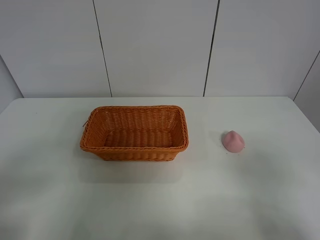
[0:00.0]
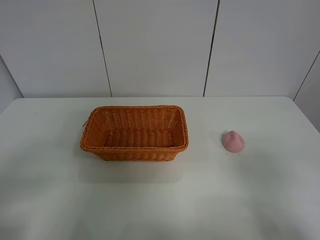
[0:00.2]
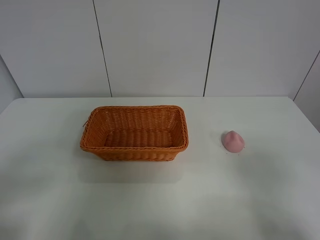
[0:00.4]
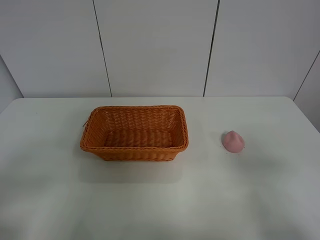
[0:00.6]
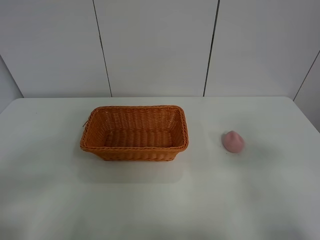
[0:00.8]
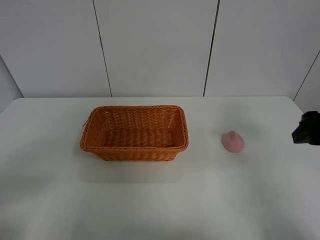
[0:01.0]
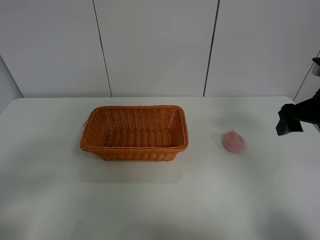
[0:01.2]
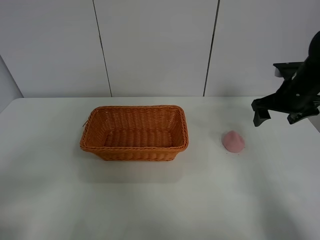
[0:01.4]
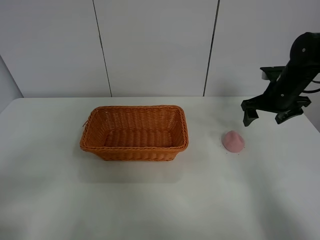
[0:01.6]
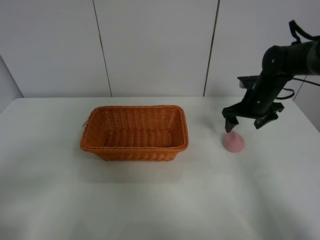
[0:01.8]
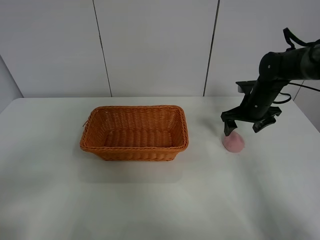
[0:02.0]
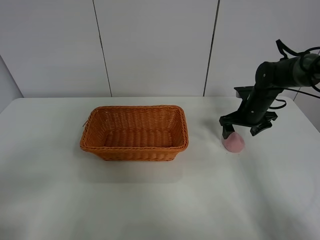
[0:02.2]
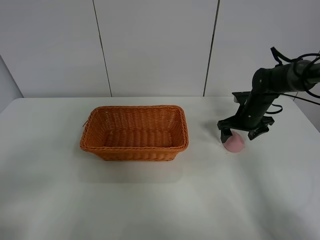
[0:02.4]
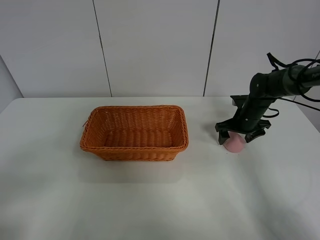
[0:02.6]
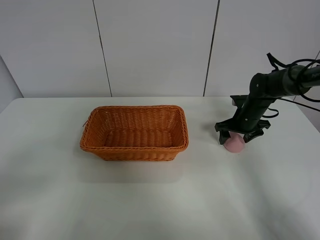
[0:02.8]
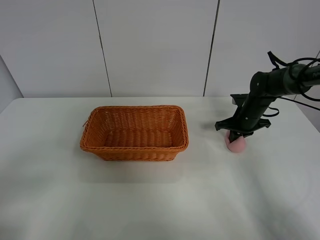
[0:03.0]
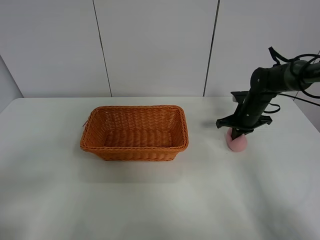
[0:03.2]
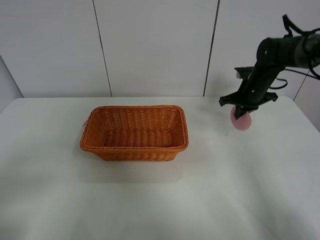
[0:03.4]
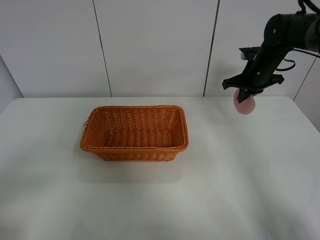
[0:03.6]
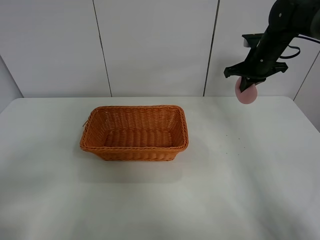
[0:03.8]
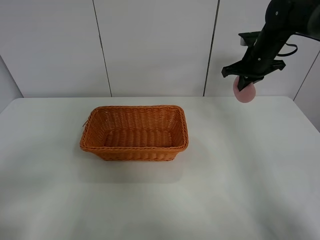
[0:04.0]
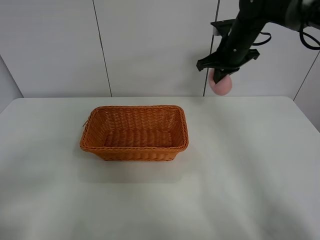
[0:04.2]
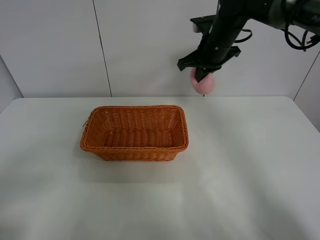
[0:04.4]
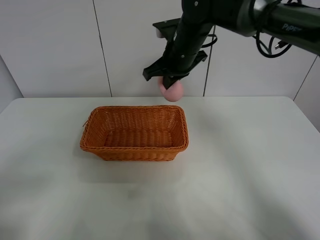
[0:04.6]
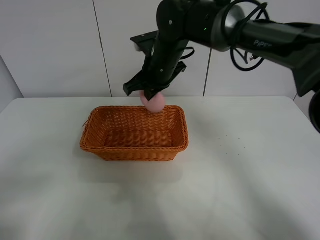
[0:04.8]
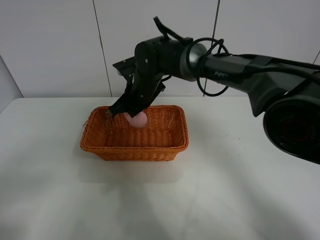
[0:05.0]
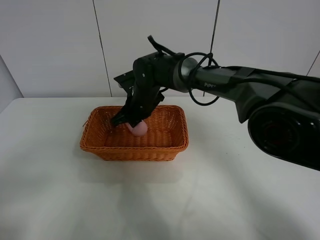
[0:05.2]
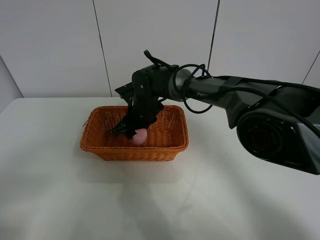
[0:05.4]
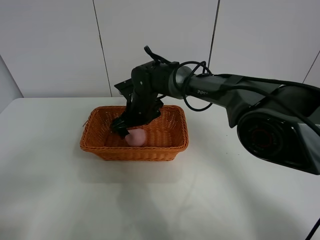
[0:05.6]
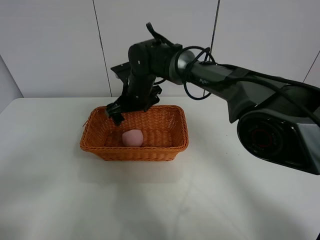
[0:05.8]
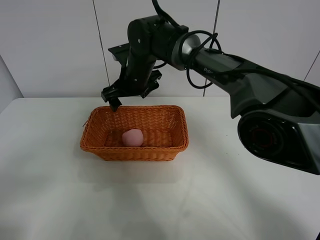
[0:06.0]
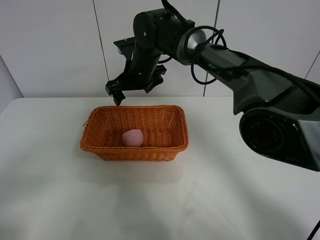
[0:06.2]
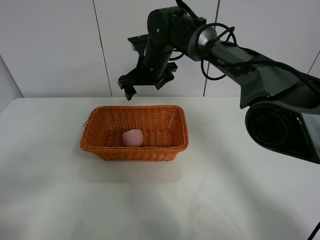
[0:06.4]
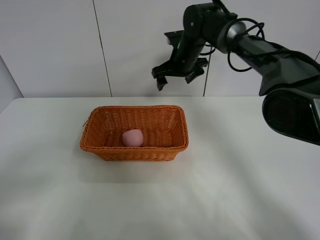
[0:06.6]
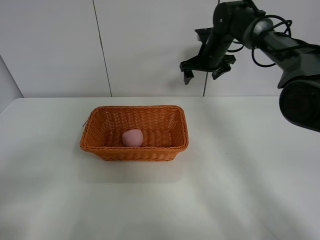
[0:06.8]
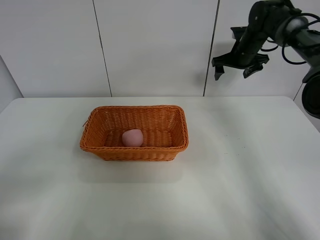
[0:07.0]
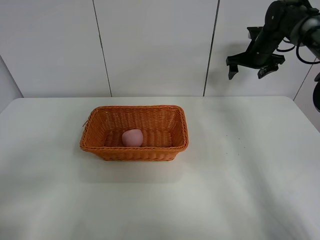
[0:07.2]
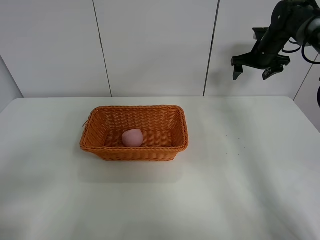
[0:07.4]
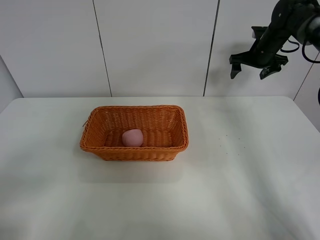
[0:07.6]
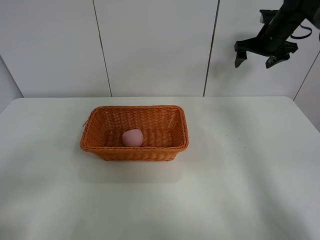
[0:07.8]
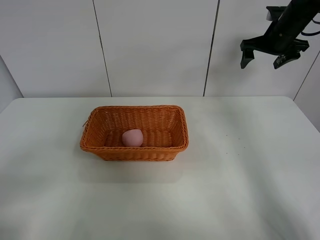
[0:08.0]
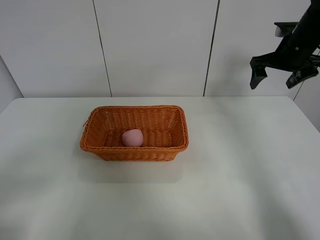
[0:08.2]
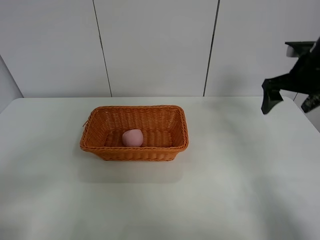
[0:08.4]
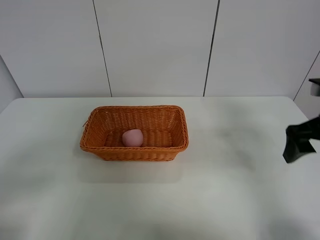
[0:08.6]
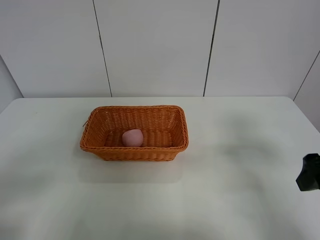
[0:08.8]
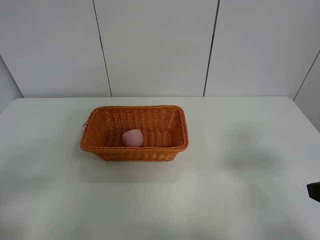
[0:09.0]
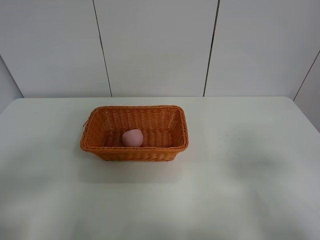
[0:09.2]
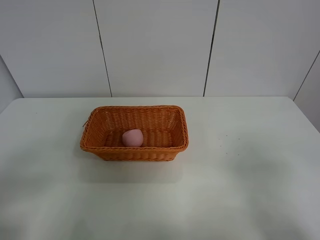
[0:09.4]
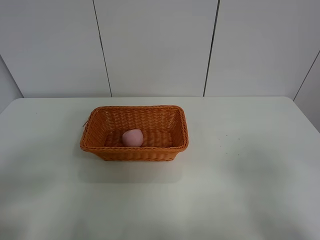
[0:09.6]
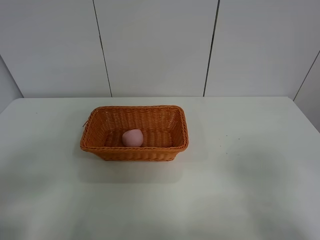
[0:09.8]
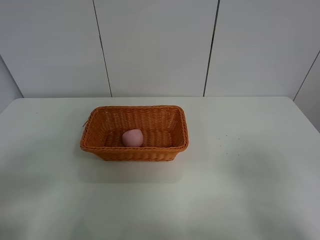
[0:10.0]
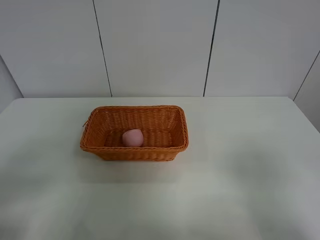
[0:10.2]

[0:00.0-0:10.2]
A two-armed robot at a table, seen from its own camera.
Step, 0:00.0 to 0:03.2: Grasp the peach with right gripper.
Step, 0:03.4 to 0:06.4: Place the peach in the basket with right gripper.
0:00.0 to 0:01.4: The right gripper shifts some 35 cm forward.
0:01.4 to 0:03.0: The right gripper moves downward and forward, roughly 15 cm, and closes up.
0:03.0 to 0:04.4: The right gripper travels upward and to the left by approximately 25 cm.
0:04.4 to 0:05.8: The right gripper travels to the left and downward by some 20 cm, and opens its fingers.
0:05.8 to 0:07.2: The right gripper goes roughly 35 cm to the right.
0:07.2 to 0:08.8: The right gripper travels backward by about 40 cm.
0:08.8 to 0:10.2: The right gripper moves backward, roughly 15 cm.

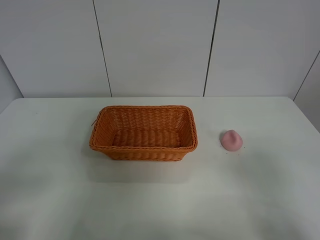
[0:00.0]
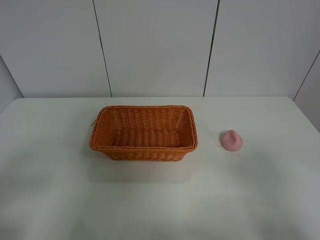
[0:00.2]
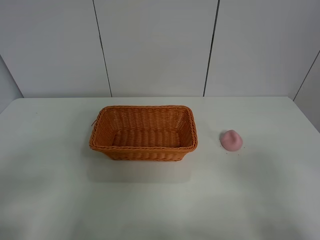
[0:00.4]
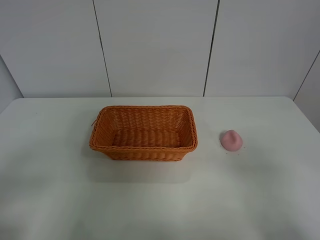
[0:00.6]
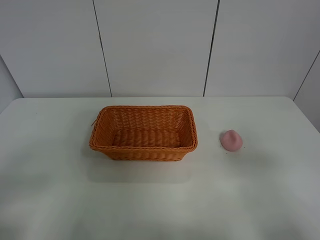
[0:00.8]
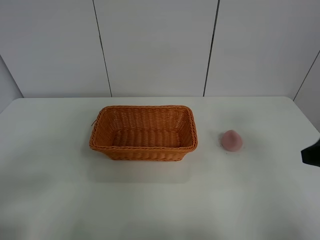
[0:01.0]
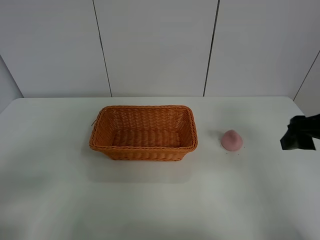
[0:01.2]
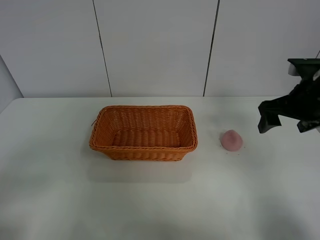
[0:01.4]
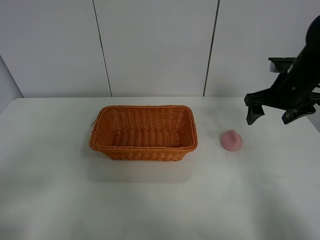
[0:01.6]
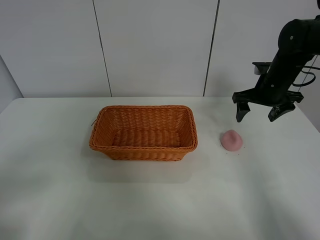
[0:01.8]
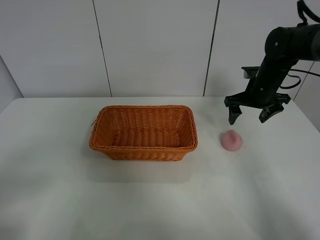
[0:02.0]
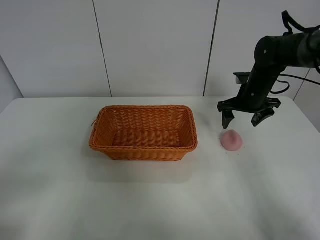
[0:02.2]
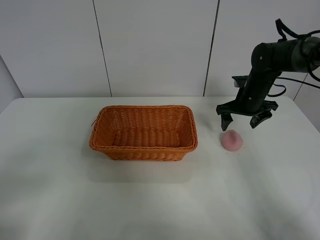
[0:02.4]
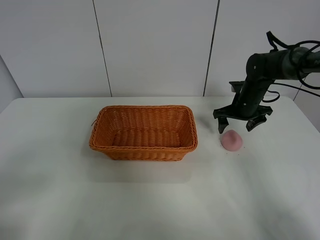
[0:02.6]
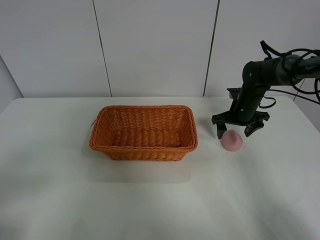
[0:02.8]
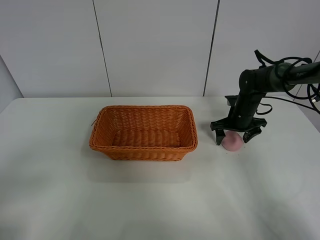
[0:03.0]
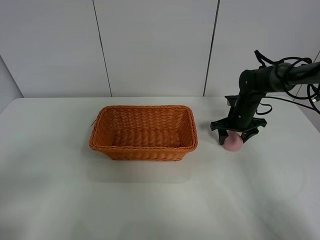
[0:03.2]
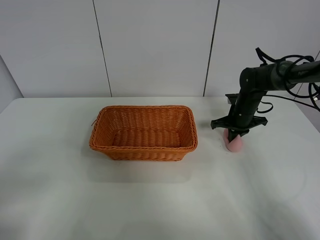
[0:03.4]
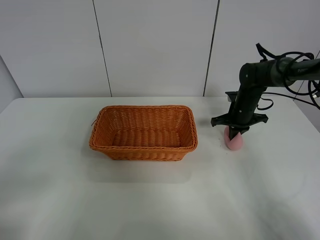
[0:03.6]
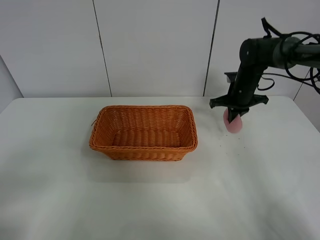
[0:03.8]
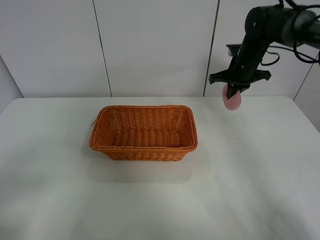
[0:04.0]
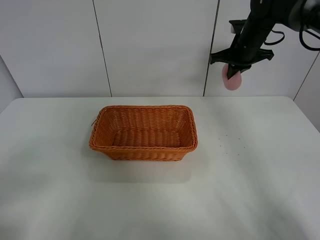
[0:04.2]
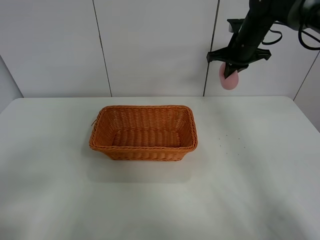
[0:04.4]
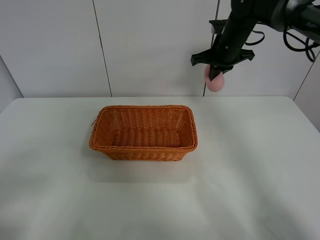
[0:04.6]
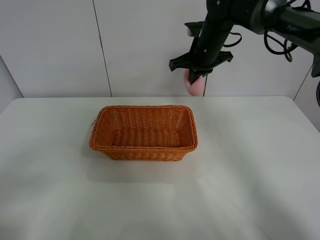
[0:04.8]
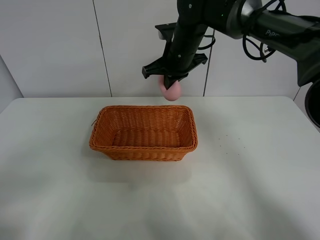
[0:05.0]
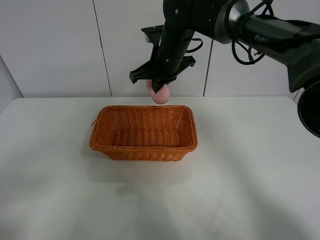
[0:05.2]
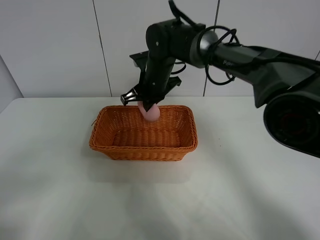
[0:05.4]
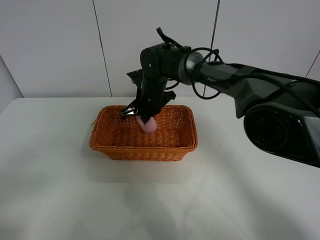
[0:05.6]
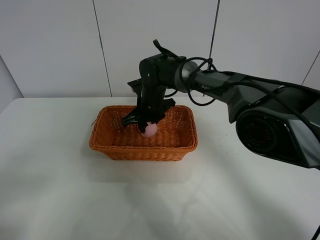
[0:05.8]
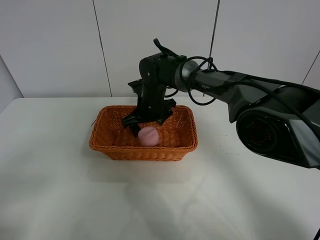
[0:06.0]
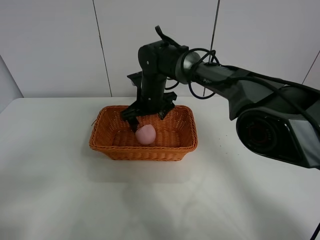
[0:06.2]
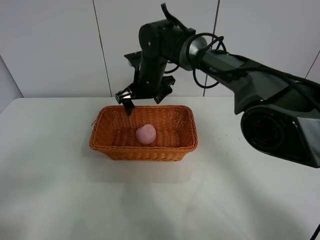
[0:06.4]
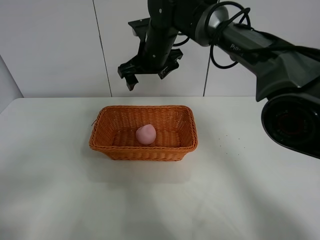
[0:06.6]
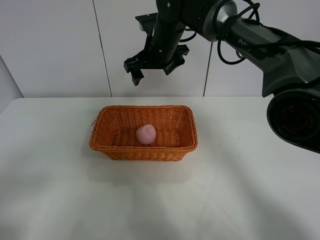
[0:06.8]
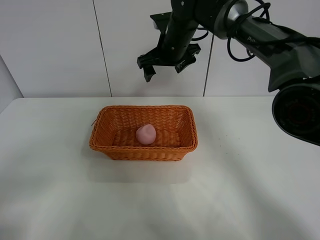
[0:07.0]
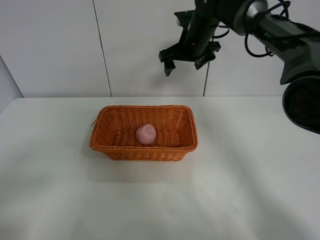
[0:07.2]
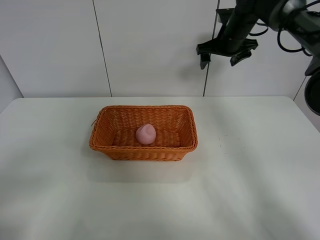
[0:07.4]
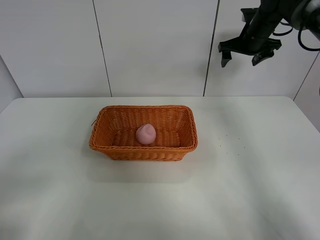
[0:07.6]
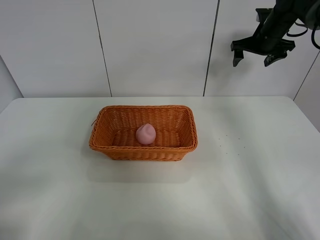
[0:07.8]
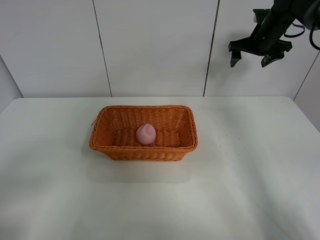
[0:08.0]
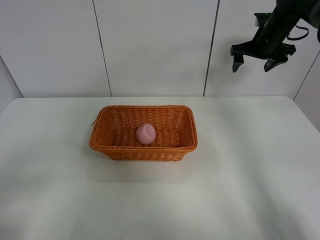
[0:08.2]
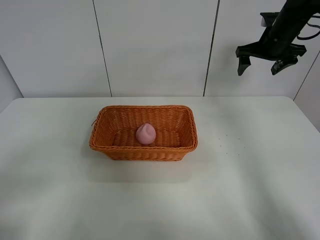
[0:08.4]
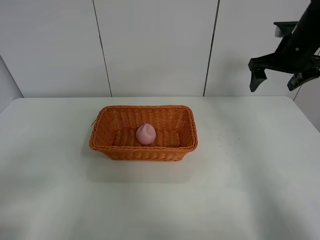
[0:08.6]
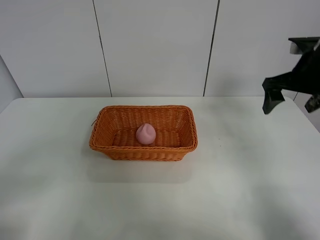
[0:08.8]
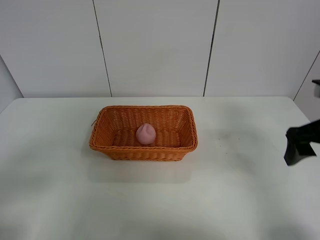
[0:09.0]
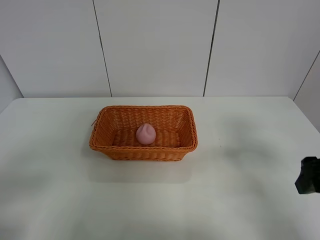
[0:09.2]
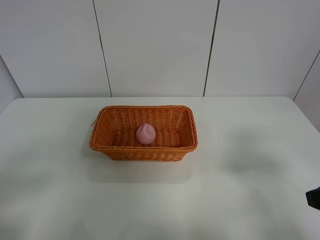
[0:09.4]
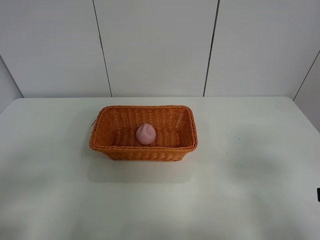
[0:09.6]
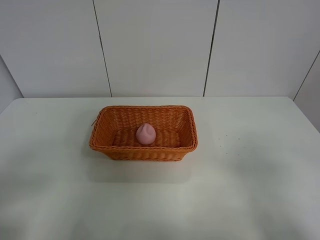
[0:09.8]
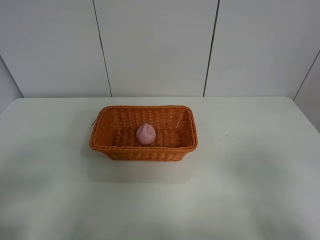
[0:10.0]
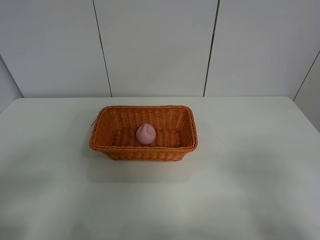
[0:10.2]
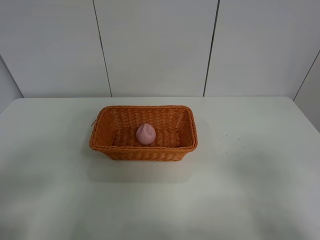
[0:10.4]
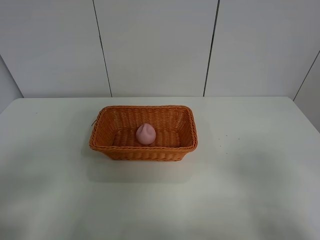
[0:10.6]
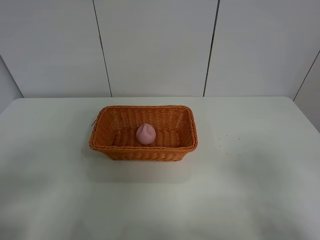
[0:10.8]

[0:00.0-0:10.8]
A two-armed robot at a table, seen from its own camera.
Step, 0:00.0 to 0:03.6: Grasp the peach with right gripper.
Step, 0:03.8 to 0:06.8: Place the peach in the basket with right gripper.
0:00.0 to 0:01.6: The right gripper shifts about 35 cm forward.
0:01.6 to 0:03.0: The right gripper heads downward and forward, covering approximately 15 cm.
0:03.0 to 0:04.6: The right gripper travels upward and to the left by roughly 20 cm, and closes its fingers.
0:04.6 to 0:06.2: The right gripper heads to the left and downward, covering approximately 20 cm, and opens its fingers.
0:06.2 to 0:07.8: The right gripper heads to the right, covering approximately 30 cm.
0:07.8 to 0:09.2: The right gripper is displaced backward by about 35 cm.
0:09.2 to 0:10.8: The right gripper shifts about 15 cm backward.

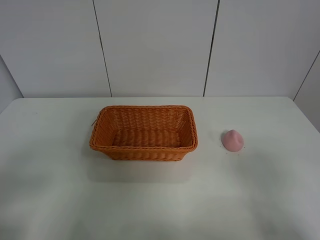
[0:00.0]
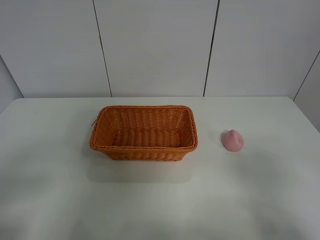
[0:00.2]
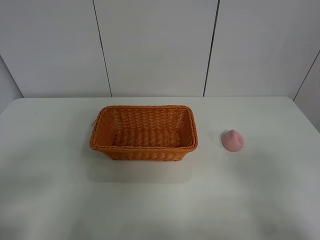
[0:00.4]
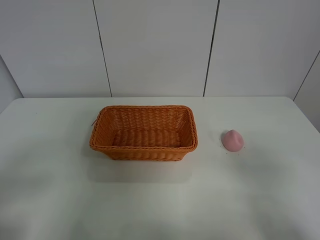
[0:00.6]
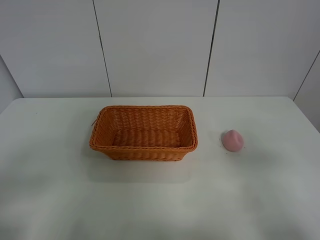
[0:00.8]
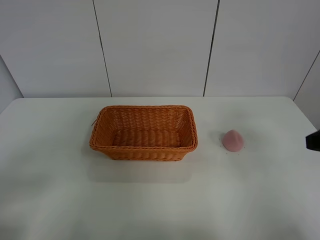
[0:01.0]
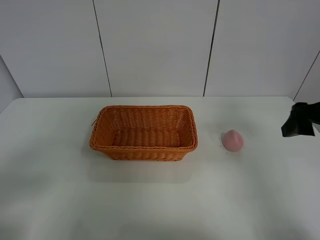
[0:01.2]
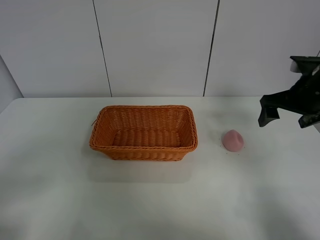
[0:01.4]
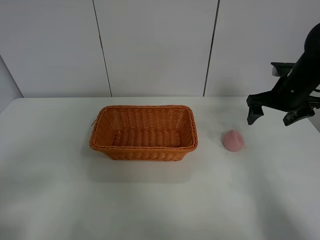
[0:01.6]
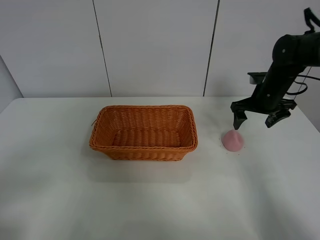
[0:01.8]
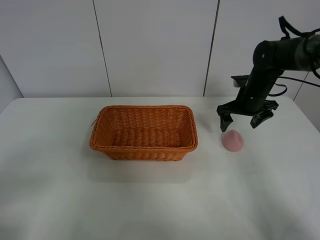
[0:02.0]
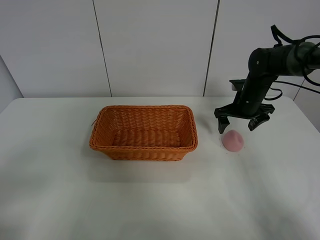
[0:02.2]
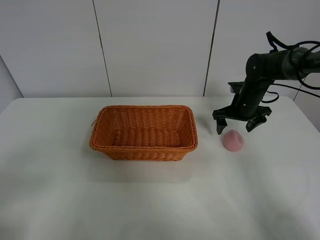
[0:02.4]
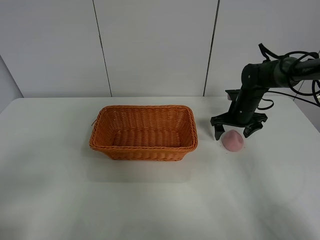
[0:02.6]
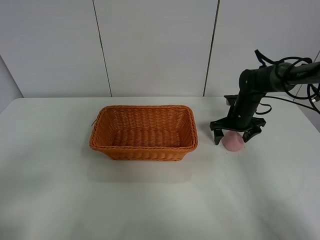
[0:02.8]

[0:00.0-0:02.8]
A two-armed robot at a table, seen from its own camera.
0:00.0 to 0:01.4: The right gripper is displaced forward by roughly 30 cm.
0:01.4 to 0:02.8: The right gripper travels downward and forward by about 20 cm.
